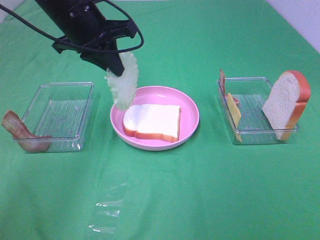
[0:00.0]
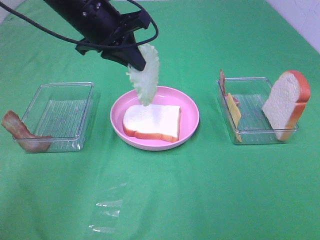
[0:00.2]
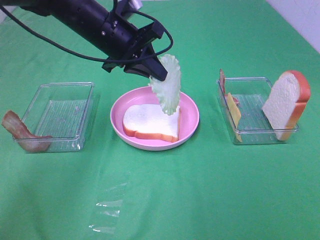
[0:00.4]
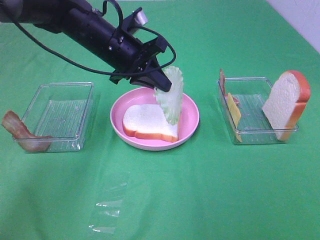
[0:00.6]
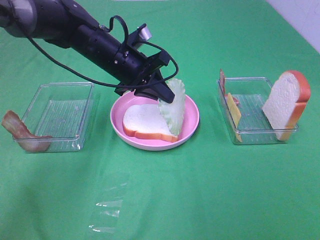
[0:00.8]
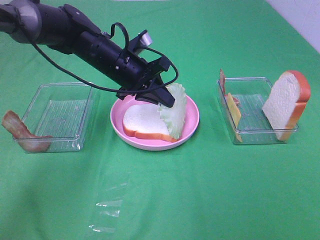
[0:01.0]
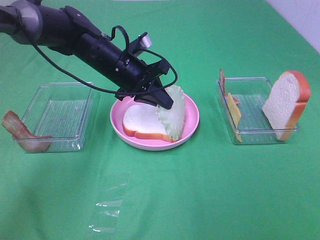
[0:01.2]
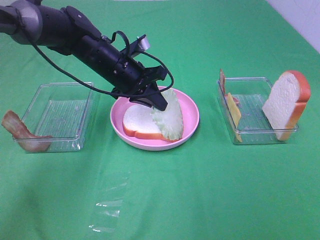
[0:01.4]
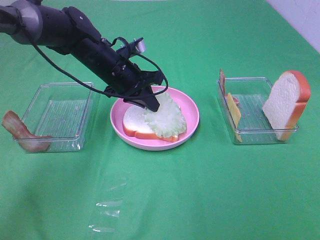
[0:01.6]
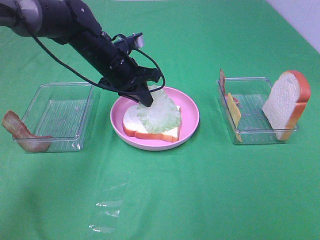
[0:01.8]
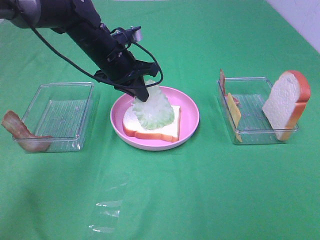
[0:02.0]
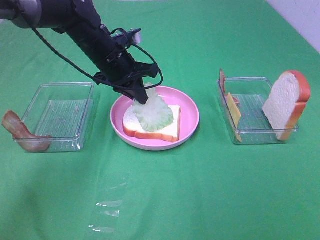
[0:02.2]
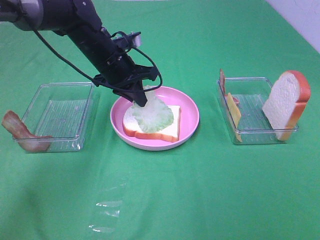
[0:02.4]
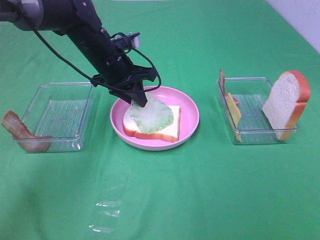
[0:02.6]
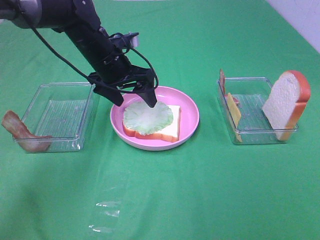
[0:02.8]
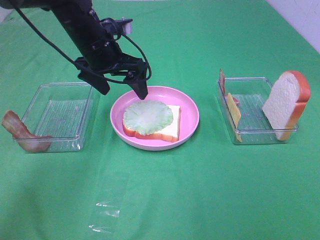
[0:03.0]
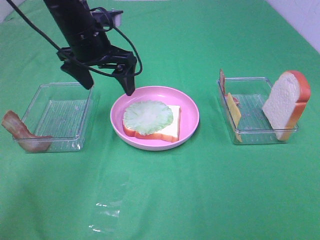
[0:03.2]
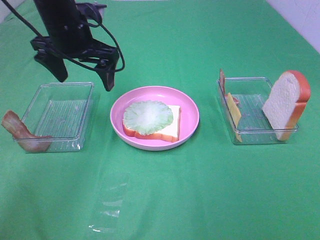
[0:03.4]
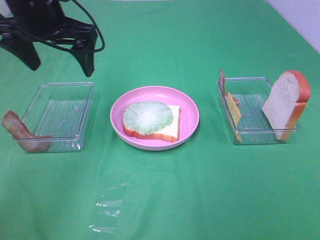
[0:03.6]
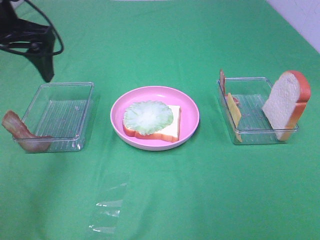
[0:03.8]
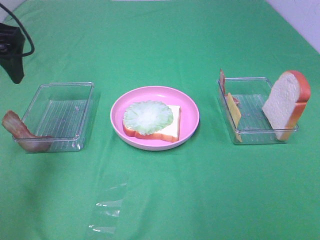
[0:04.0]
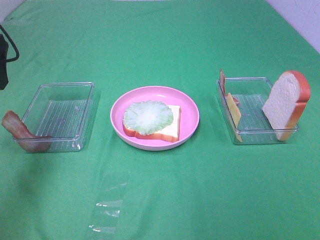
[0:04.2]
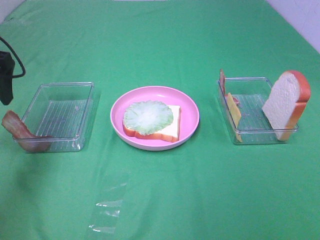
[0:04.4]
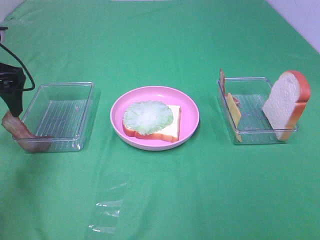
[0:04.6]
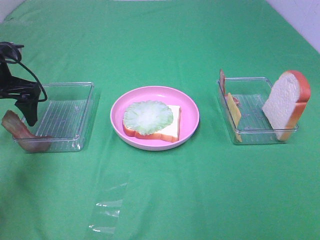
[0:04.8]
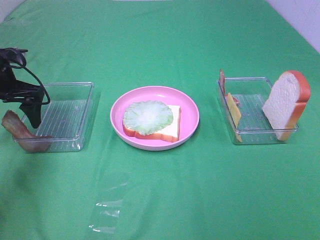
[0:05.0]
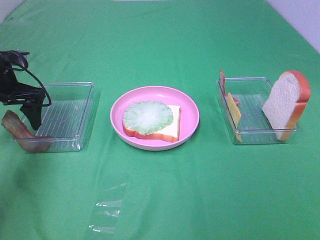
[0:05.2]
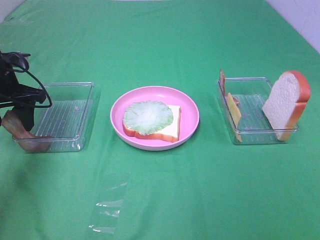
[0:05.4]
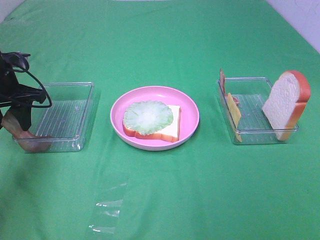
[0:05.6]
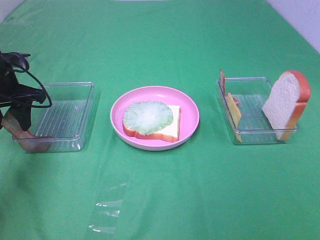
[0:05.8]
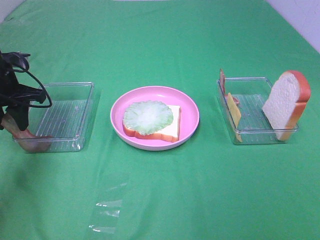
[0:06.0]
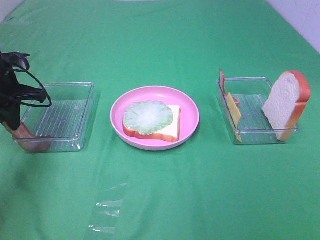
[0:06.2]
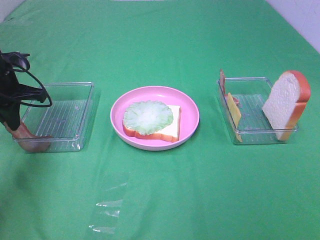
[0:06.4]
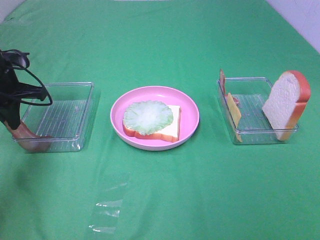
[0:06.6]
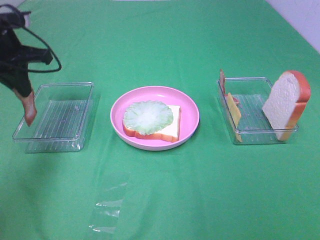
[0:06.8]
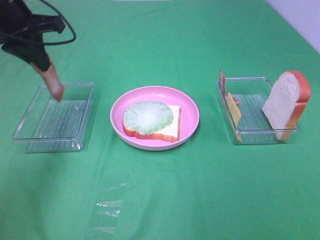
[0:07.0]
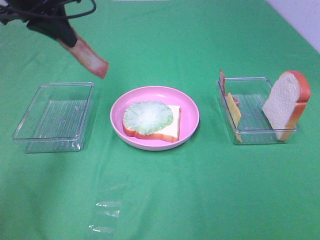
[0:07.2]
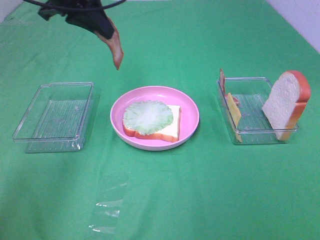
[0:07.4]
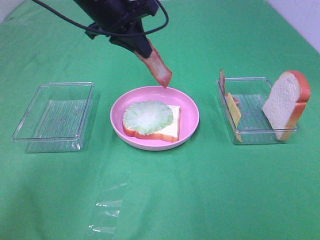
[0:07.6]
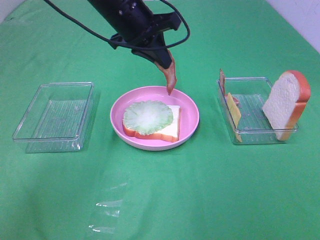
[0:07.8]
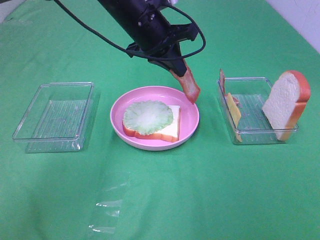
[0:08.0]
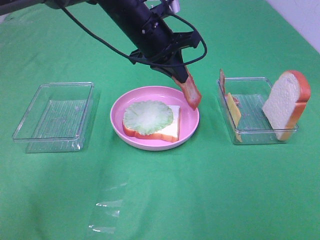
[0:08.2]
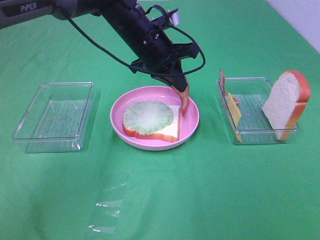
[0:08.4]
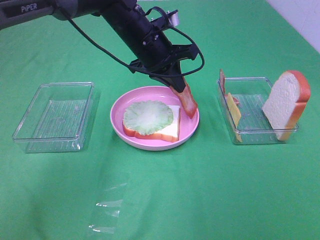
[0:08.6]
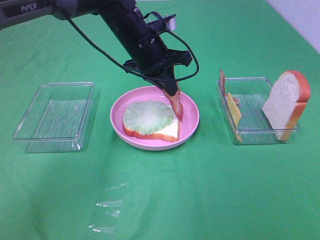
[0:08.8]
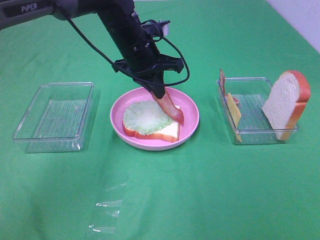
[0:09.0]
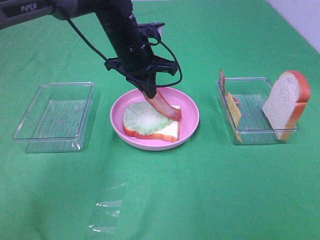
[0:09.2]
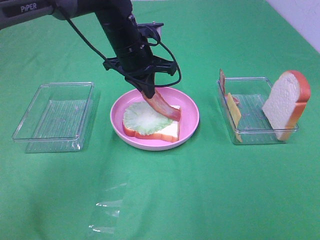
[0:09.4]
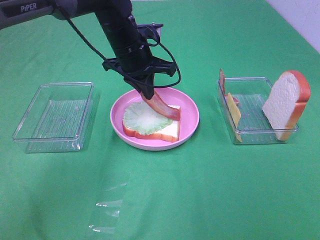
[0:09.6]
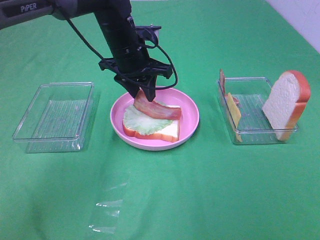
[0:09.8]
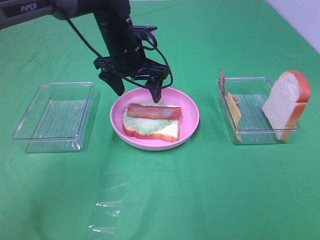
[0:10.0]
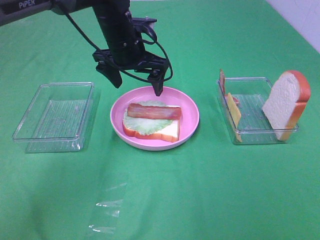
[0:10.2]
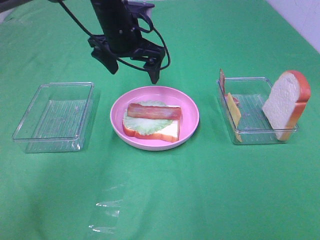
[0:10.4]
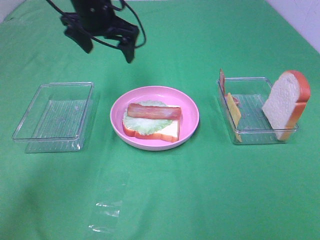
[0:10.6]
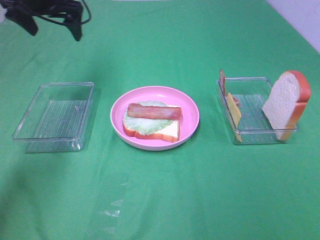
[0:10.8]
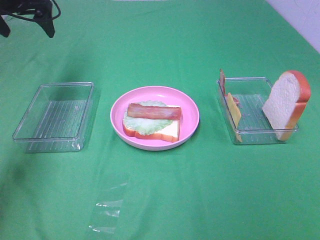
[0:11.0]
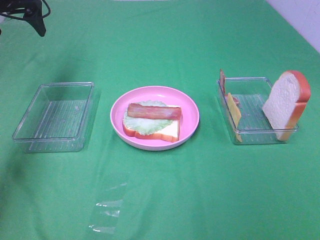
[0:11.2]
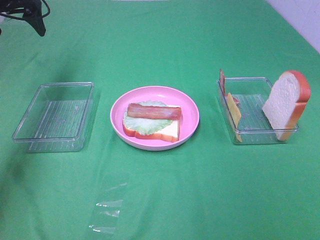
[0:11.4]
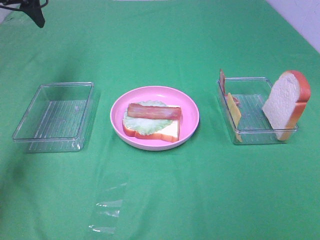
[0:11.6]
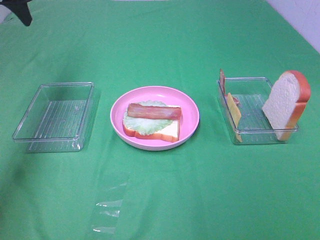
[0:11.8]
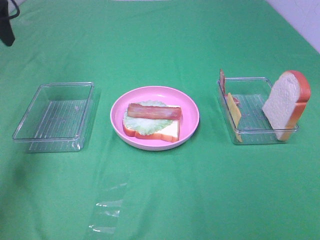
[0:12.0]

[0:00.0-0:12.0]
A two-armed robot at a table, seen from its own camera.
Task of the whole recording: Make sandwiches.
Step, 0:00.0 to 0:02.8: Left hand:place the lettuce slice on the bread slice.
Step, 0:03.0 to 0:06.4: Left hand:grab the bacon.
Step, 0:06.6 to 0:10.0: Left hand:place bacon on lettuce slice.
0:00.0 to 0:01.6: The left gripper moves downward, some 10 cm.
0:01.6 to 0:03.0: The left gripper moves upward, roughly 5 cm, and opens its fingers.
0:03.0 to 0:04.4: The left gripper heads to the left and backward, covering approximately 20 cm.
0:04.4 to 0:06.0: The left gripper is displaced downward by approximately 10 cm, and closes up.
0:06.0 to 0:07.6: The left gripper goes some 25 cm to the right and upward, and closes up.
0:07.6 to 0:09.0: The left gripper moves downward, some 10 cm.
0:09.0 to 0:10.4: The left gripper ends up some 5 cm from where it was, and opens.
0:10.4 to 0:12.0: The left gripper moves to the left and upward, some 25 cm.

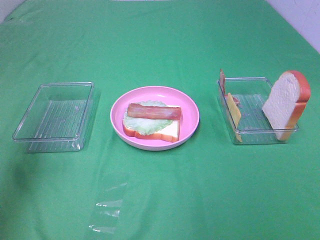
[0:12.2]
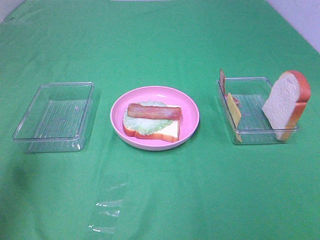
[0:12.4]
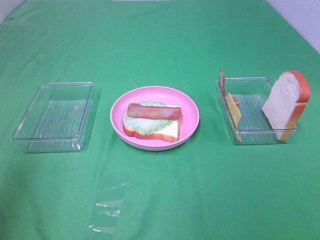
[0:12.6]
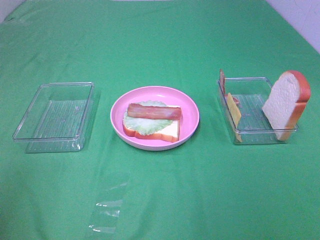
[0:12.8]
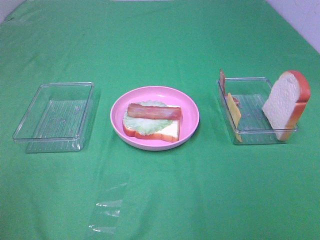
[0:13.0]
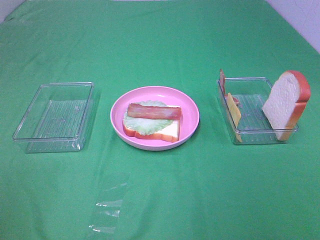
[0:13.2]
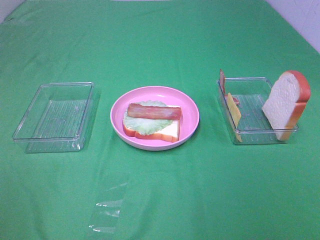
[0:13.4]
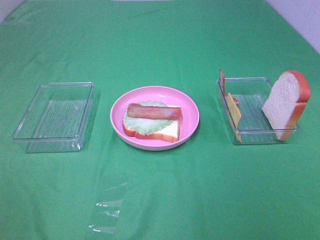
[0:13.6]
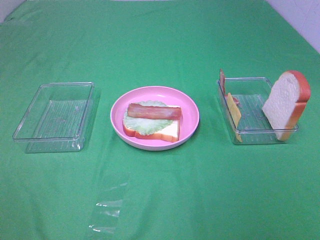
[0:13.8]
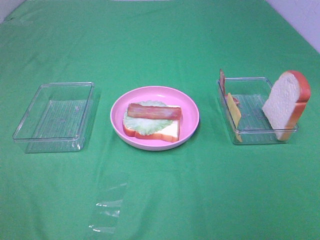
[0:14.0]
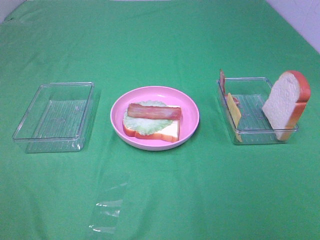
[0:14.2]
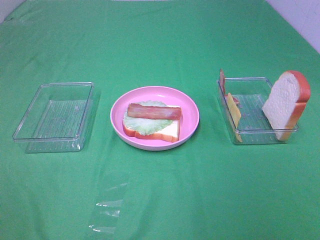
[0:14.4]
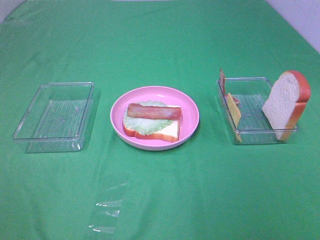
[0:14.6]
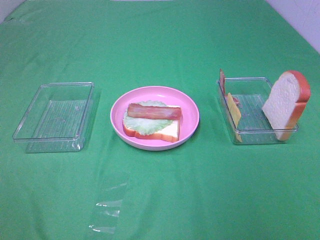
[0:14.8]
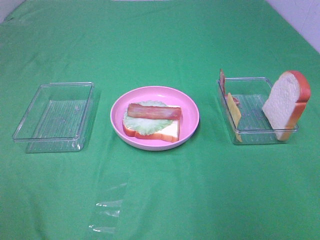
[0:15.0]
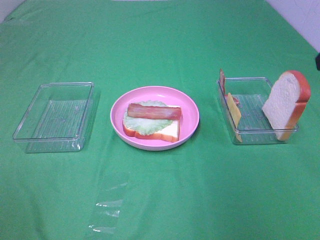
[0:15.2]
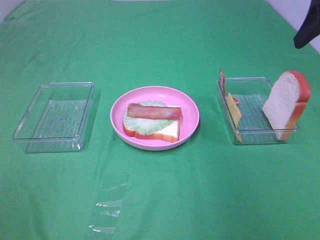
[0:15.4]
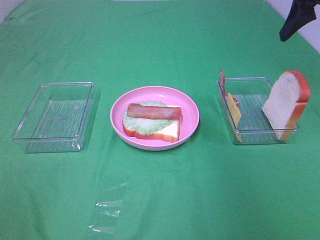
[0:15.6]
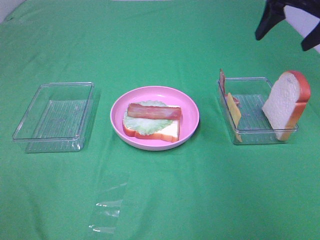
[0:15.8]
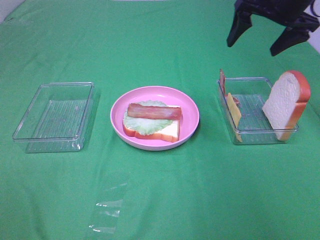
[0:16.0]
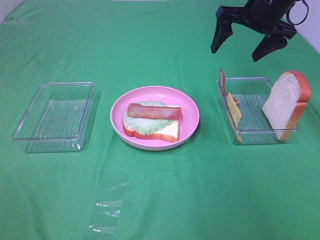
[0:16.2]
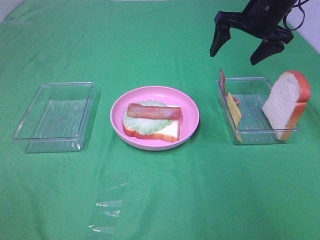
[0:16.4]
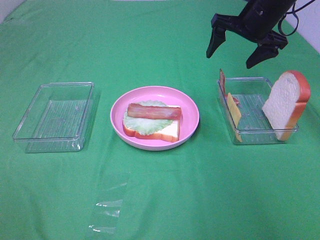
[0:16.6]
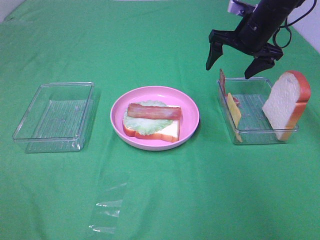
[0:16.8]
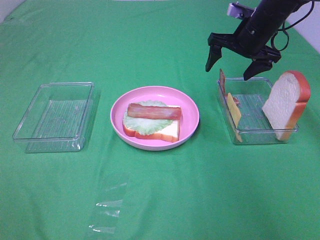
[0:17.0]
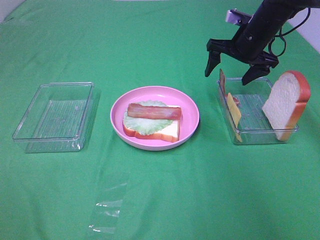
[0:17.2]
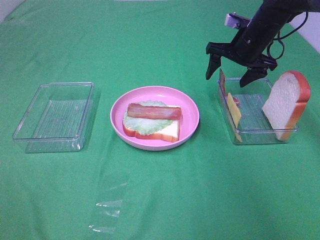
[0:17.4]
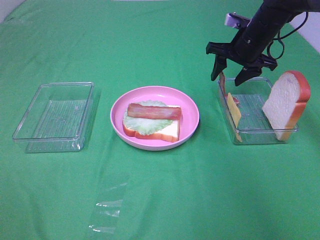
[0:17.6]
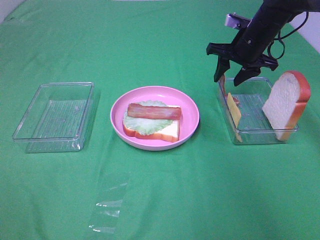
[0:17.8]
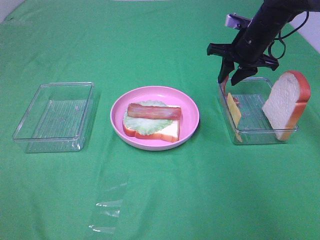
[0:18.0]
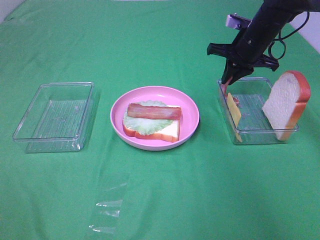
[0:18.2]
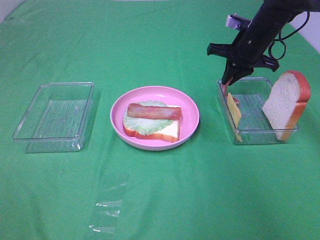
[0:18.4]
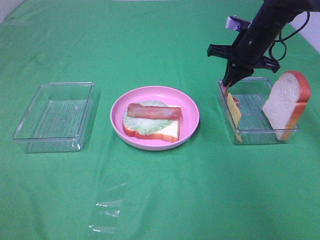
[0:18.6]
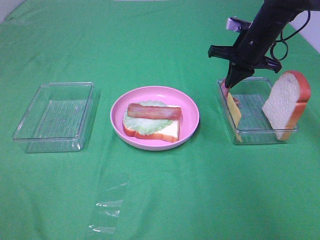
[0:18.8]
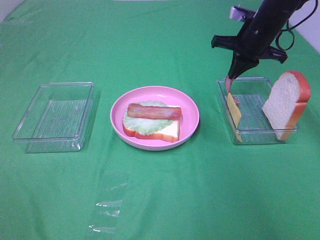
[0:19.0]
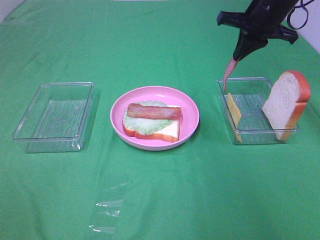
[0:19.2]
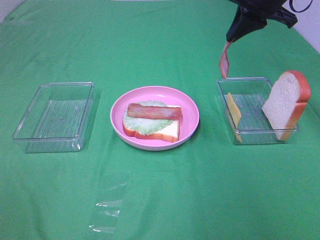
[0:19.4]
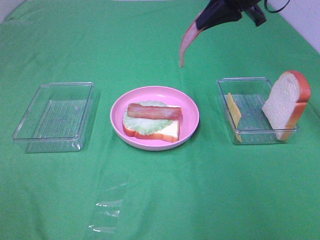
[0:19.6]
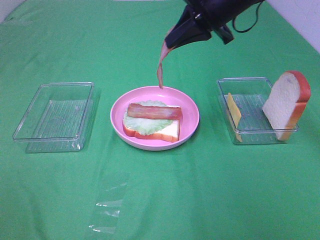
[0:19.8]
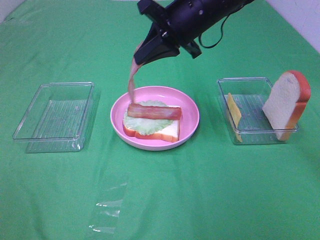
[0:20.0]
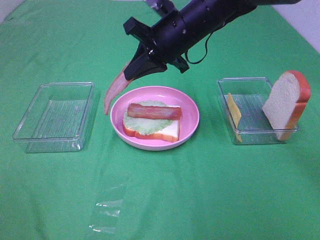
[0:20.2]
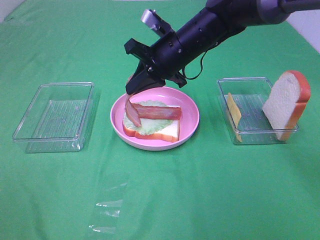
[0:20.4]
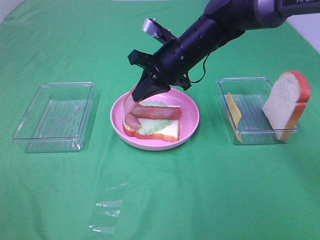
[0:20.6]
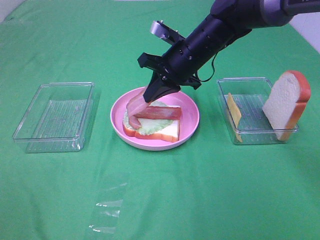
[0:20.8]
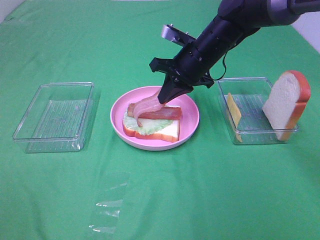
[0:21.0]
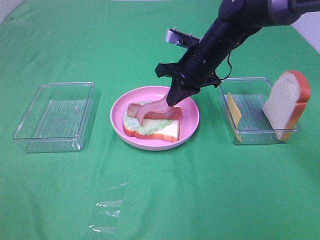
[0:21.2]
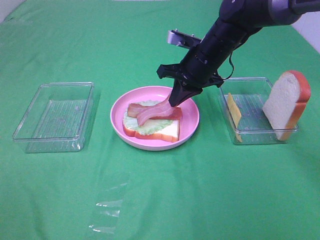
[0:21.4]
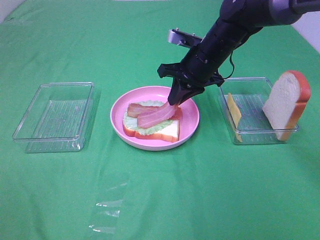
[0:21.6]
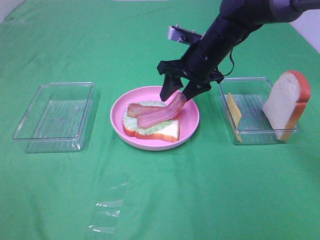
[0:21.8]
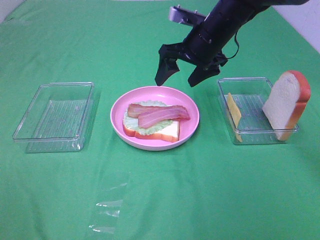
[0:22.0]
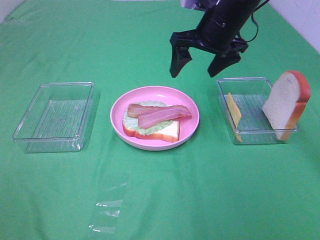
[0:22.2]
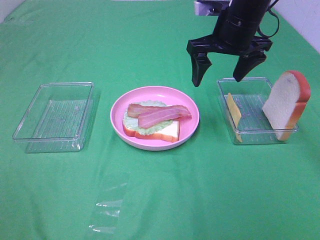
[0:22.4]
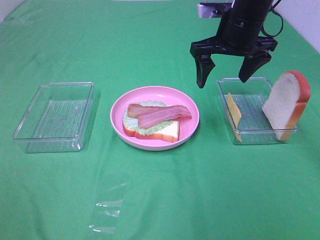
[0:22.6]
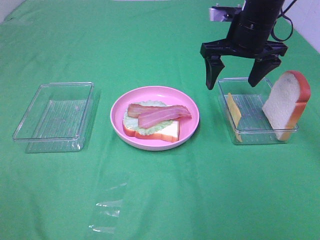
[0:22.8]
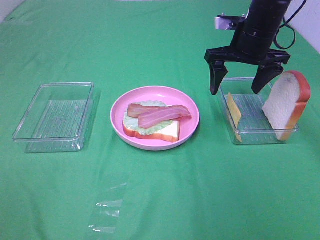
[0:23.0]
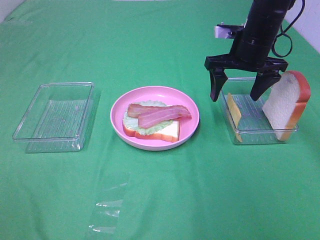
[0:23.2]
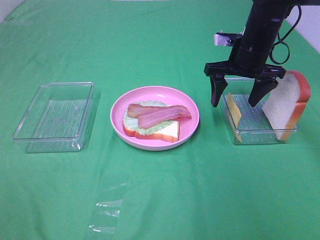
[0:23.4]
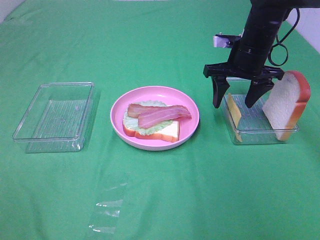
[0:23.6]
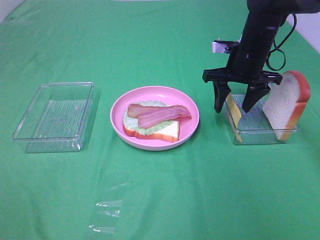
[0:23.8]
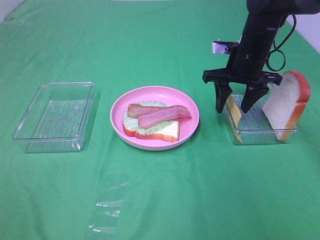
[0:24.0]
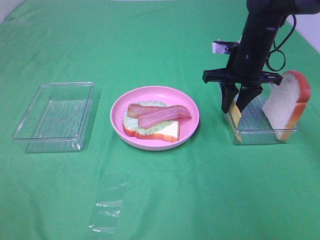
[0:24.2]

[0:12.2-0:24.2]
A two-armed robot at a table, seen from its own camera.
Task of the whole recording: Make sandwiches.
Step, 0:12.2 to 0:18.8: Right hand:grab the bacon.
Step, 0:19.0 to 0:21.8: Right hand:place bacon on bacon.
0:12.2 to 0:13.8: The left gripper heads backward, covering about 30 cm.
0:15.2 to 0:16.6: The right gripper goes roughly 25 cm forward and downward.
0:16.6 to 0:18.2: The right gripper shifts some 5 cm downward, and closes its fingers.
0:18.2 to 0:19.8: The right gripper heads upward, to the left and backward, covering approximately 15 cm.
0:19.8 to 0:21.2: The right gripper travels downward by some 10 cm.
0:21.2 to 0:22.6: The right gripper shifts about 10 cm upward, and opens.
0:22.6 to 0:24.2: The right gripper moves downward, roughly 10 cm, and closes its fingers.
